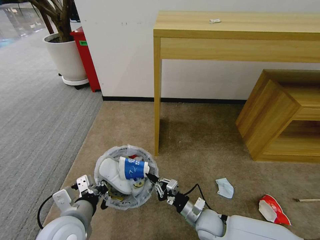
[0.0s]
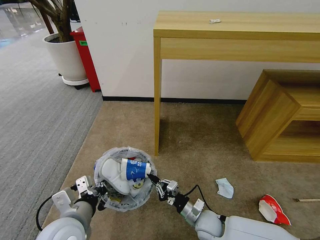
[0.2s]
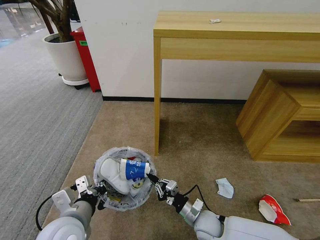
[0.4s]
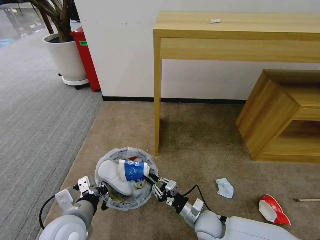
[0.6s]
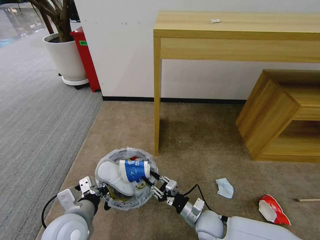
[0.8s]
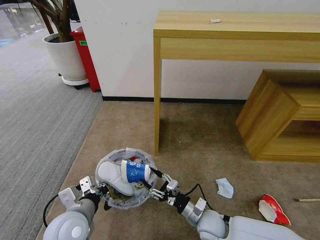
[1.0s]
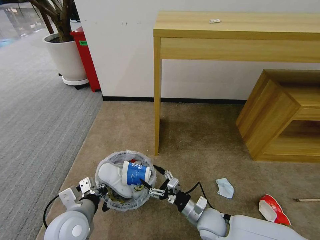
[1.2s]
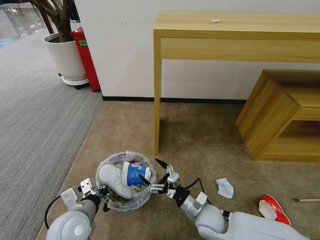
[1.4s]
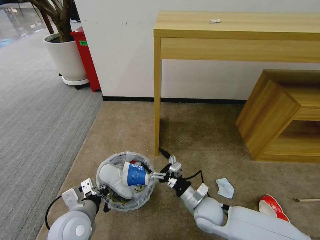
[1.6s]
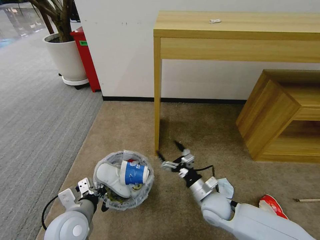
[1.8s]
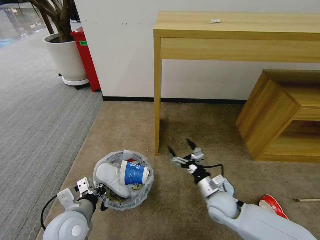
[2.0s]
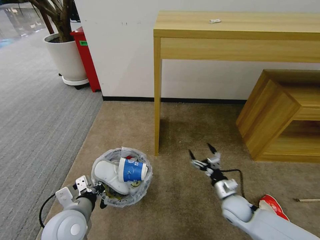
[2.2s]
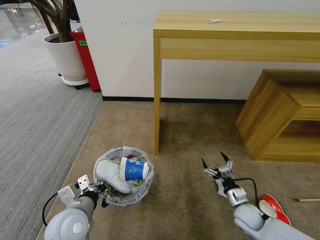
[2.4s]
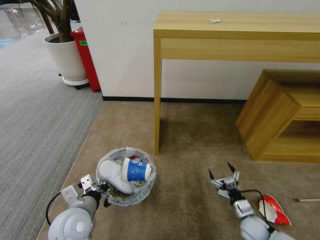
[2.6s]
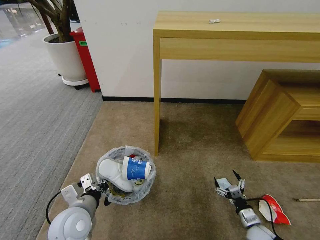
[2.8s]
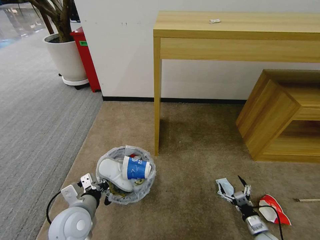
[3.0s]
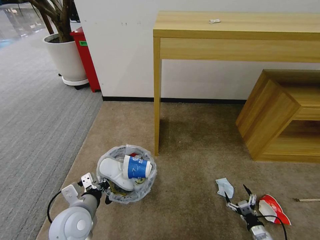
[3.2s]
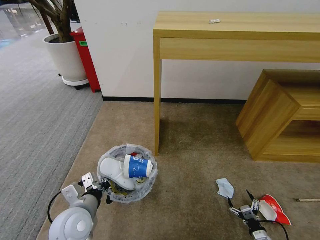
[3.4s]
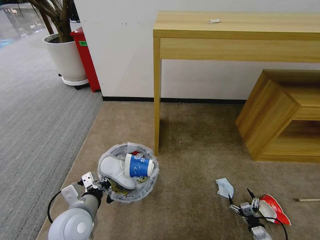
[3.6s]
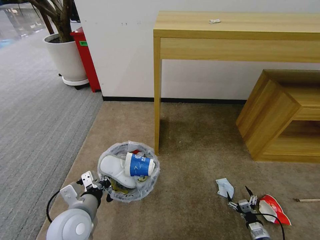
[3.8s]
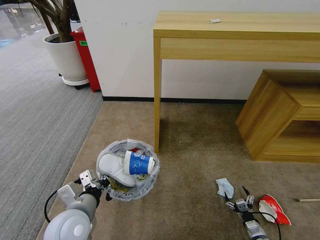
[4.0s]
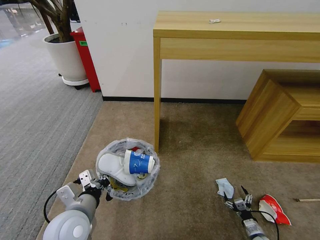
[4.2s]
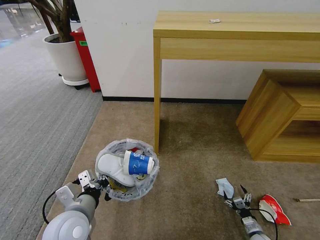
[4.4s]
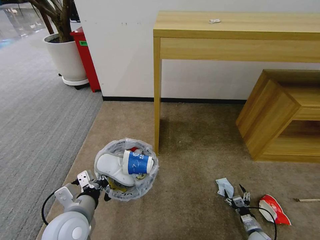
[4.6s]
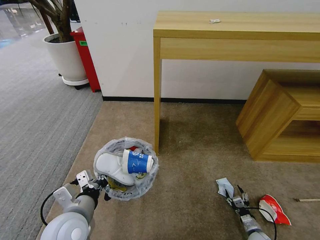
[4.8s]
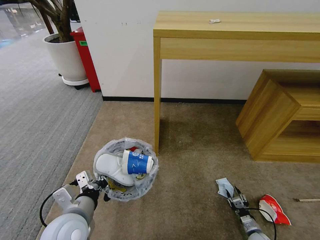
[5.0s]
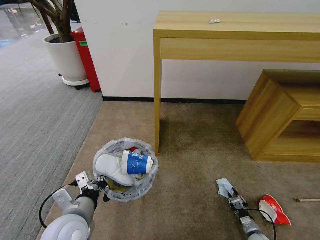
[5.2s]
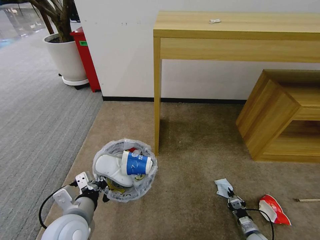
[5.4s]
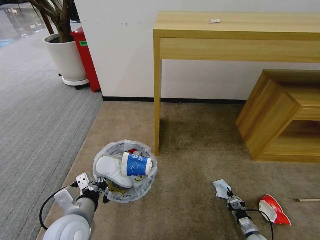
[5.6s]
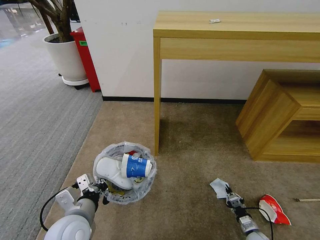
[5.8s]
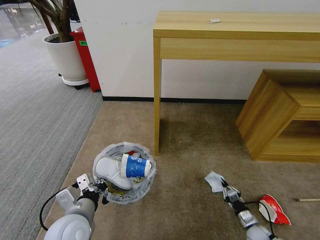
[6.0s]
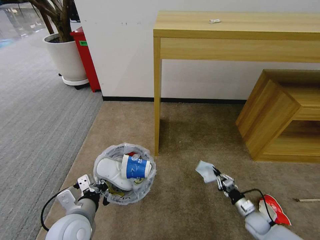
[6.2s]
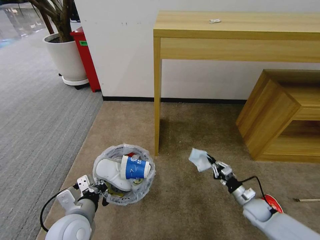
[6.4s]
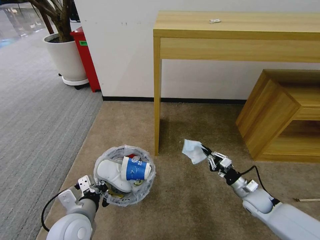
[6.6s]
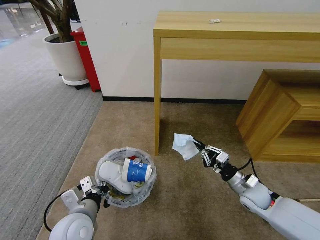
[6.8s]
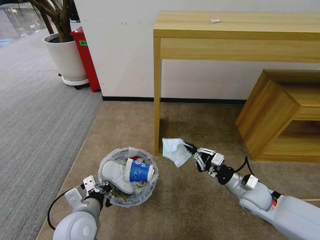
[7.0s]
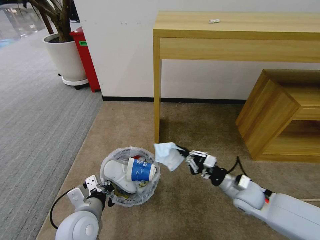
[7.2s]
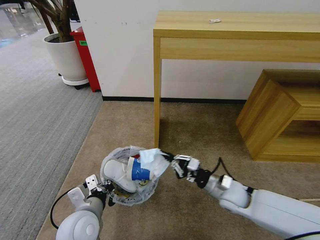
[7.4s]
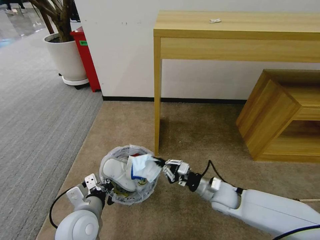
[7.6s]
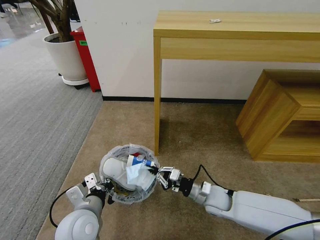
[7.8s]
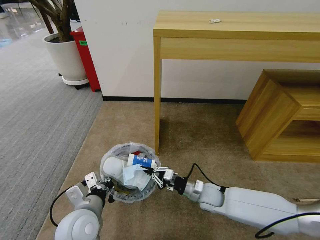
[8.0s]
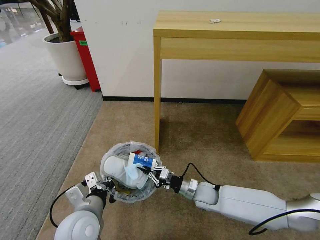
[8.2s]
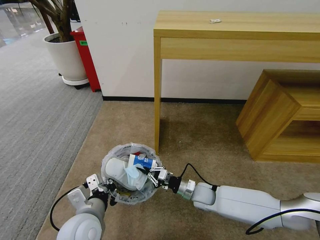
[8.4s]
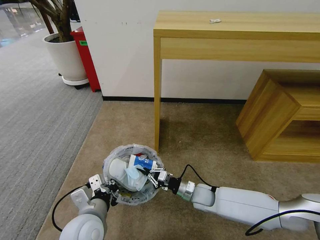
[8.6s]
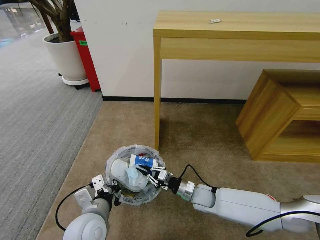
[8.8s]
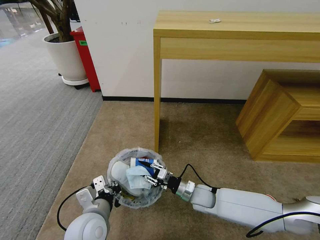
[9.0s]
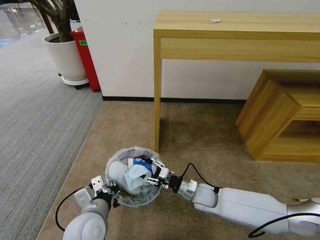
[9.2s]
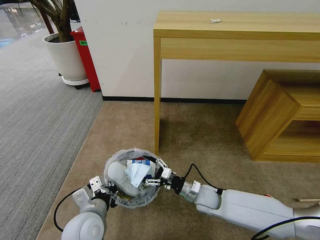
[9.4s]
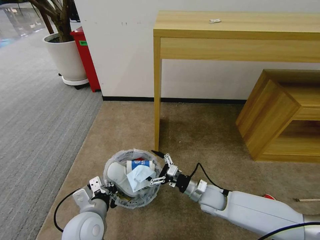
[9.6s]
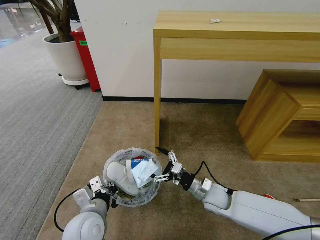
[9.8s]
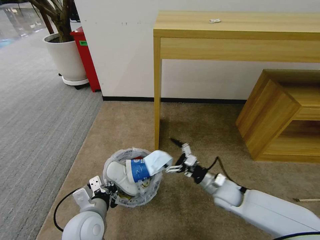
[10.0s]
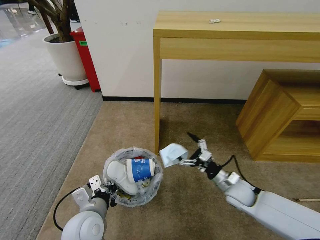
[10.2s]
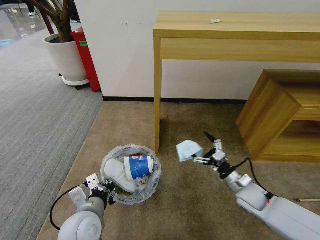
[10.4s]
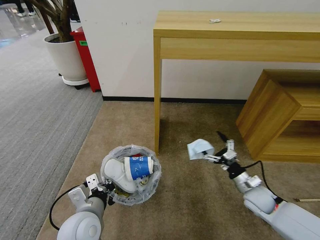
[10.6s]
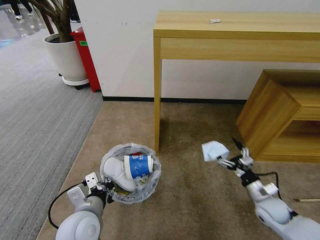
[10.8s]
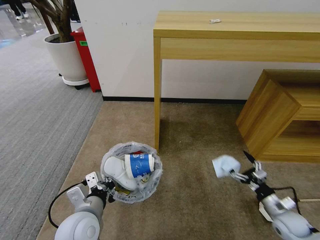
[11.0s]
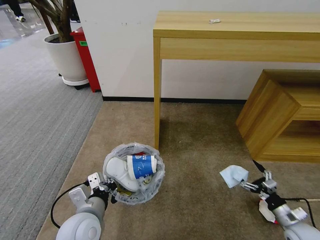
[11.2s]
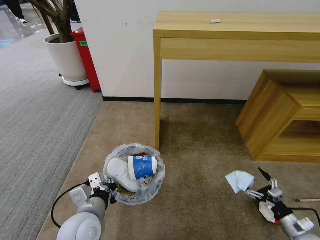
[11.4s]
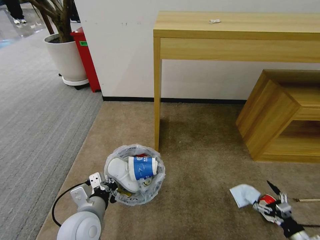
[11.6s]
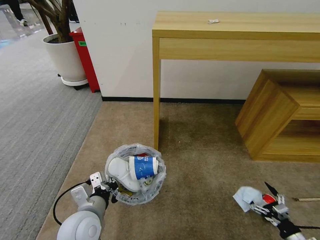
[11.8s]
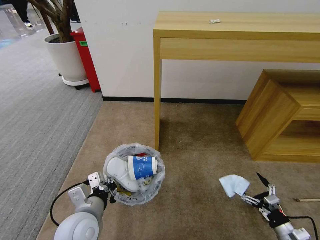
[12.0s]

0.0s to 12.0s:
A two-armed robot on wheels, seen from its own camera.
Task of the whole recording: Pick up the trash bin and place the garbage on the floor into it.
0.0s to 1.6s: The right gripper changes place by some 5 cm, and opens up, while the left gripper changes place by about 5 cm.
1.6s to 3.0s: The right gripper heads to the right and downward, covering approximately 30 cm.
3.0s to 4.4s: The right gripper is displaced downward by about 10 cm.
4.4s to 6.0s: The right gripper closes its fingers.
6.0s to 7.6s: The right gripper is displaced upward, to the left and forward by approximately 30 cm.
7.6s to 9.0s: The right gripper travels downward and to the left by some 10 cm.
9.0s to 10.4s: The right gripper travels to the right by approximately 15 cm, and opens up.
10.4s to 12.0s: The right gripper goes roughly 25 cm backward, to the right and downward.

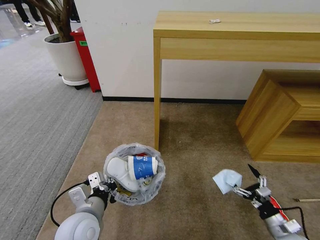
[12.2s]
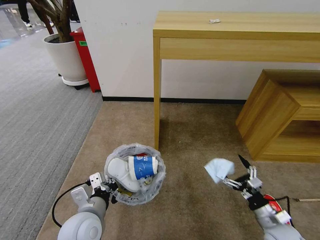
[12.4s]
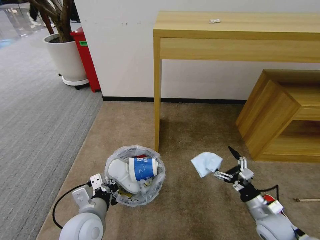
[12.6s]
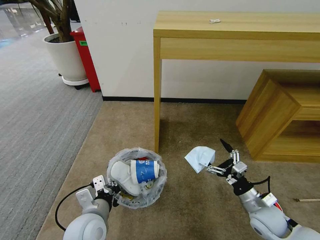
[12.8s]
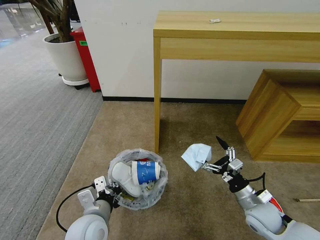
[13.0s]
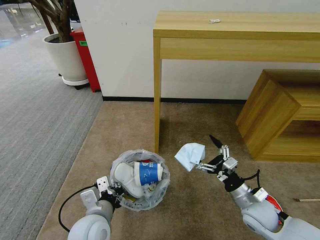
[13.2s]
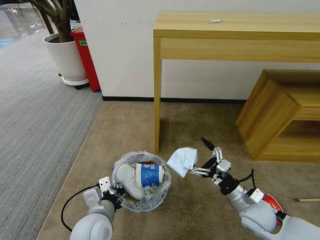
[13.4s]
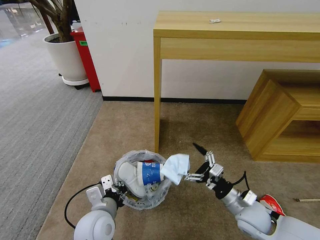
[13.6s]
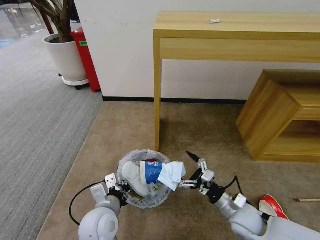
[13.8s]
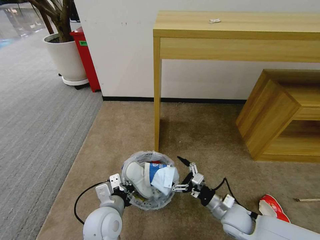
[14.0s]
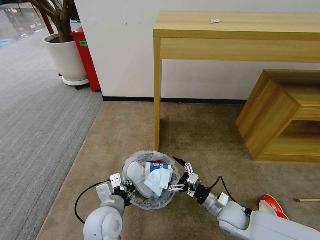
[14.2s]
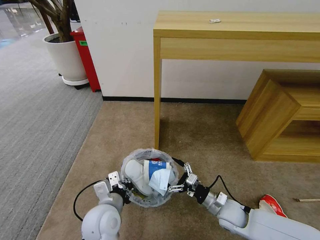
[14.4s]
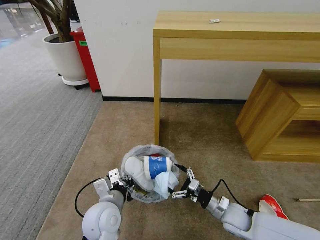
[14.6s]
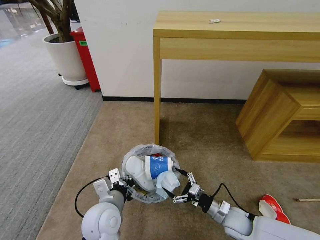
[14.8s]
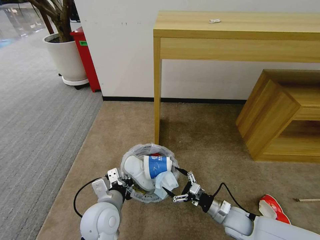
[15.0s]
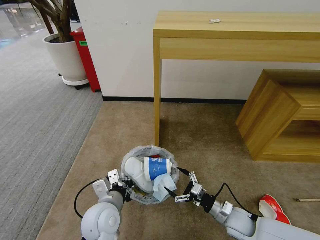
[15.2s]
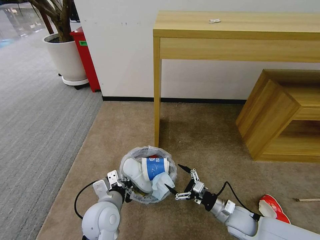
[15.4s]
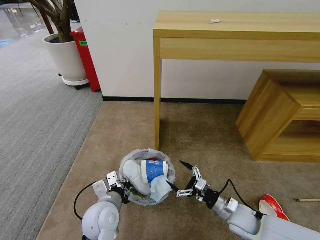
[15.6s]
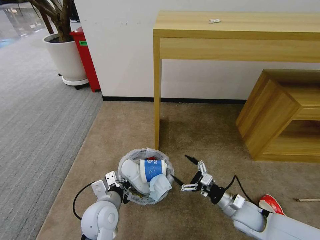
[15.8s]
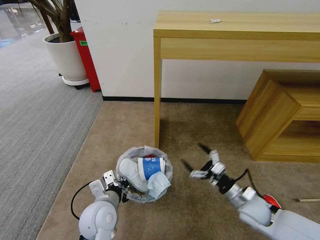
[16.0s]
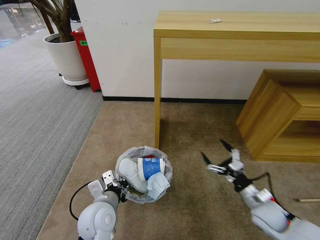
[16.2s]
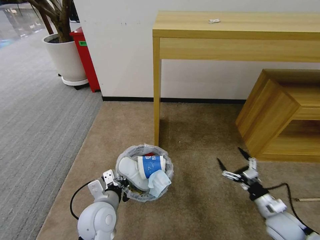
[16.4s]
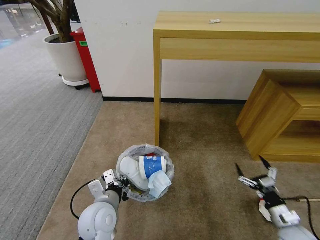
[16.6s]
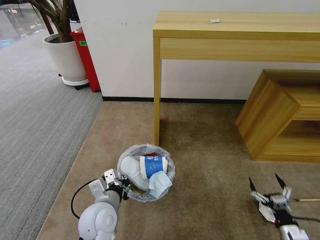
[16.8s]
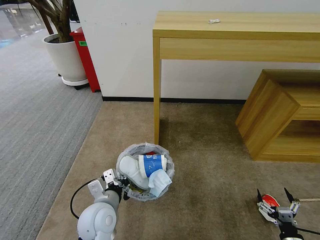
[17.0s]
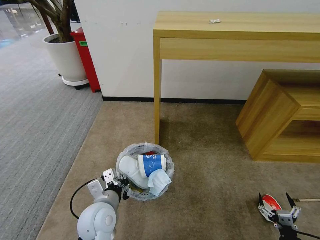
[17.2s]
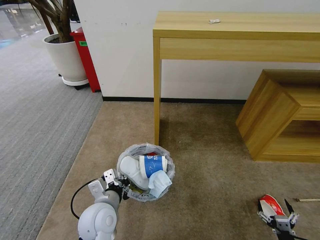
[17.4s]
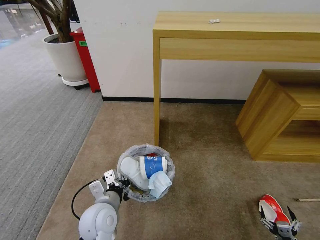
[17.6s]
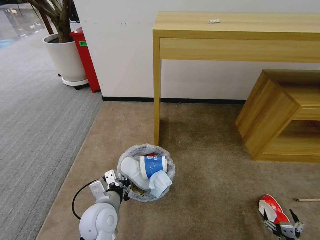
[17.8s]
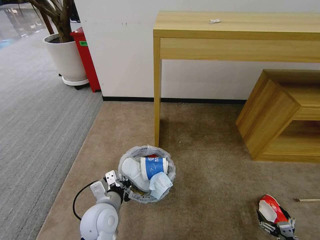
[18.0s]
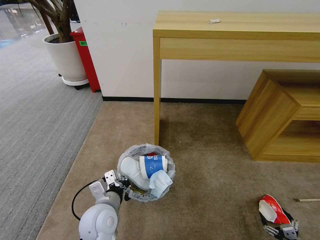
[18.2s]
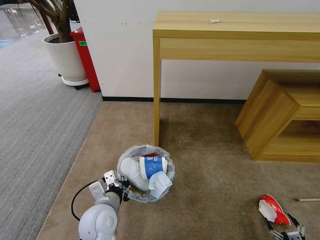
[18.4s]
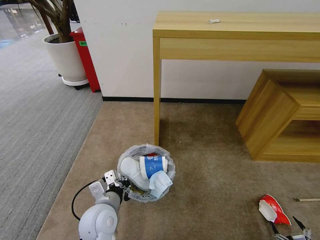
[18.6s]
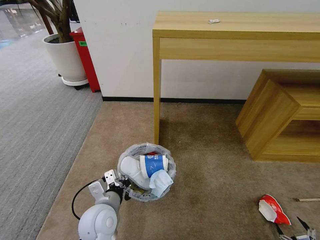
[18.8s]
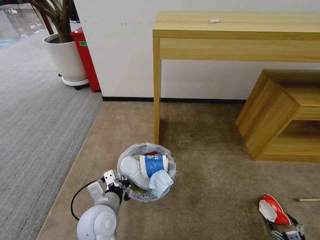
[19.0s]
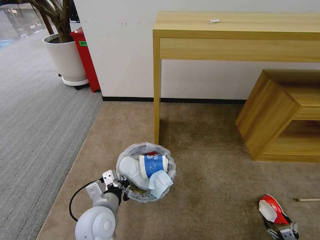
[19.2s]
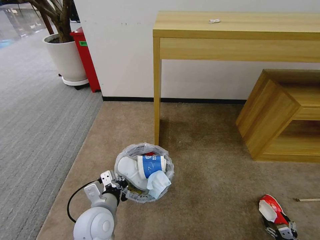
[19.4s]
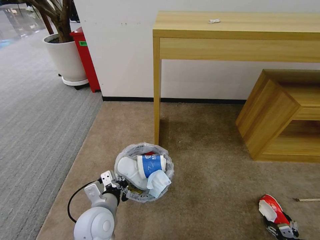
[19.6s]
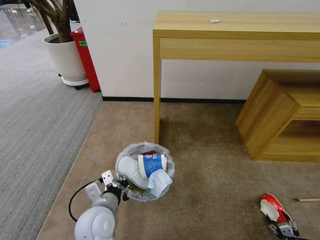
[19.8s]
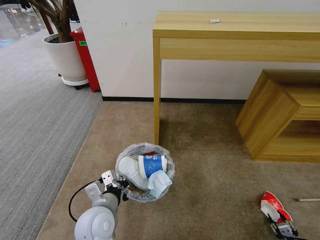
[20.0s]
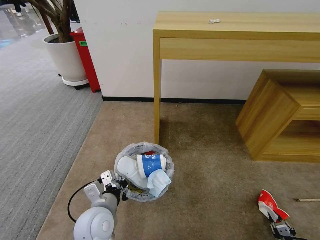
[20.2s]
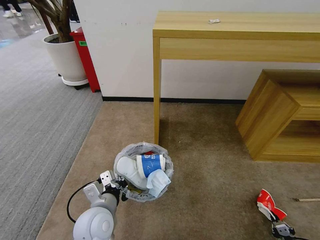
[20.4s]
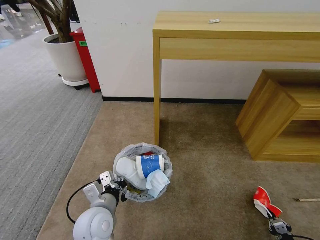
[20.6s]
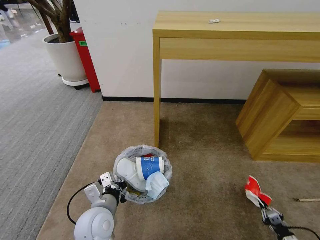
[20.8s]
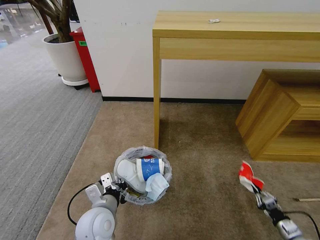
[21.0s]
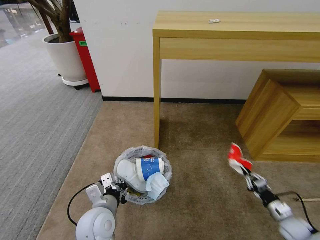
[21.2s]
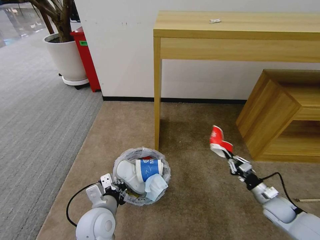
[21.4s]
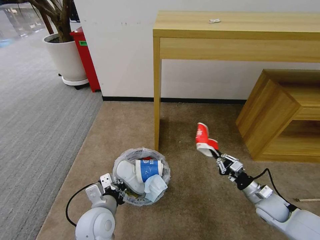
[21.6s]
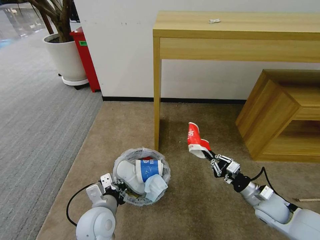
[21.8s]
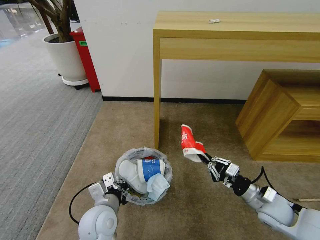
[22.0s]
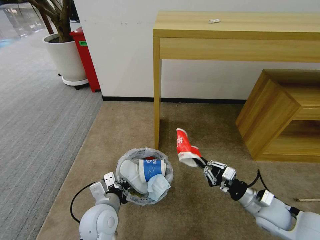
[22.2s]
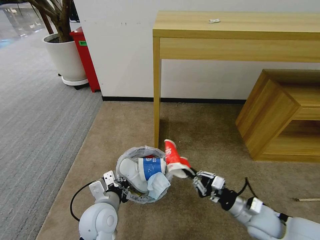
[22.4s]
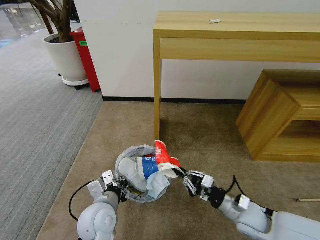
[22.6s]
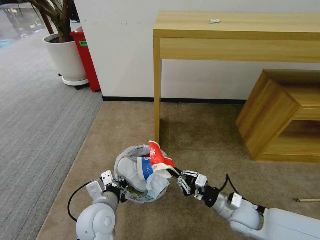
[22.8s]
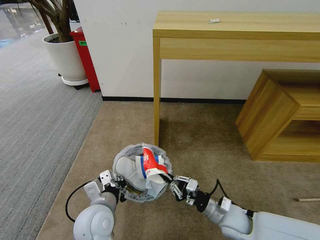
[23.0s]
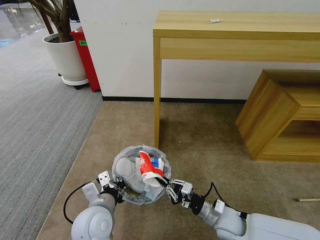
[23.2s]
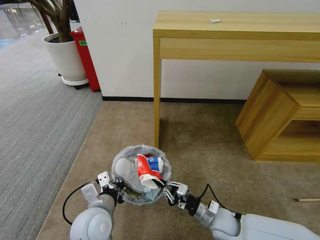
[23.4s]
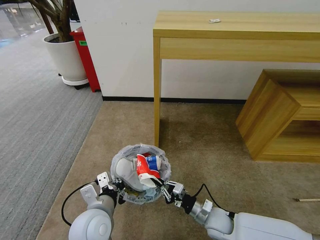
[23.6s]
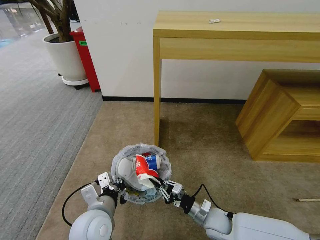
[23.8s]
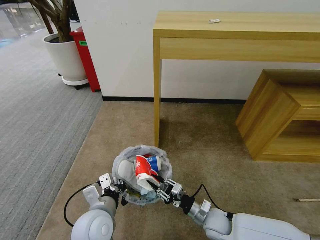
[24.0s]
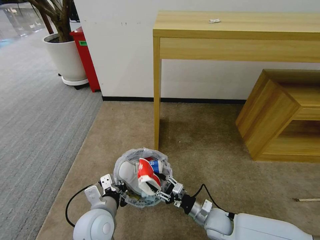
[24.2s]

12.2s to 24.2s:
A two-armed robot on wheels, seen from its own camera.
Task of the whole recording: Pick up the trash bin and place the garbage on the floor into it.
12.2s to 13.8s: The right gripper travels to the left, forward and upward by roughly 20 cm.
13.8s to 15.2s: The right gripper is displaced downward by some 5 cm.
15.2s to 16.6s: The right gripper goes about 15 cm to the right.
16.6s to 18.2s: The right gripper shifts about 20 cm backward, downward and to the right.
18.2s to 19.8s: The right gripper ends up some 5 cm from where it was.
19.8s to 21.2s: The right gripper shifts about 20 cm forward, upward and to the left, and closes.
21.2s to 22.6s: The right gripper travels to the left and upward by roughly 25 cm.
22.6s to 24.2s: The right gripper is displaced to the left and downward by approximately 10 cm, and opens.
